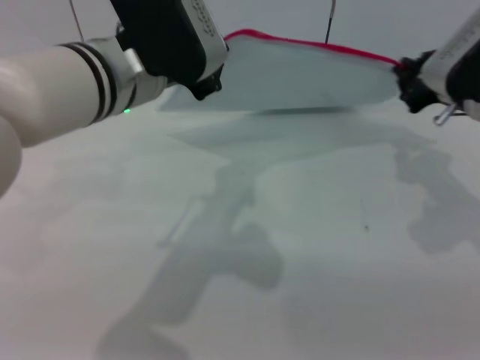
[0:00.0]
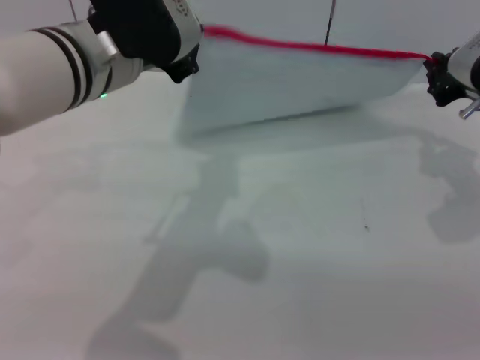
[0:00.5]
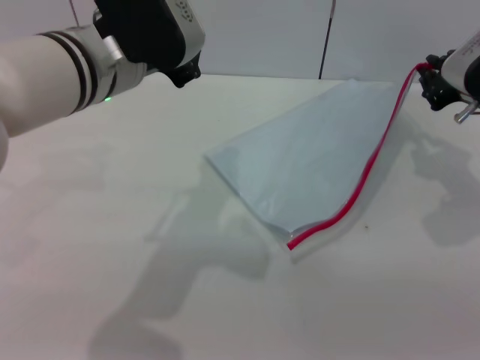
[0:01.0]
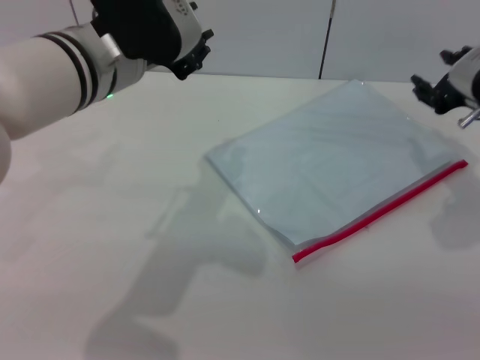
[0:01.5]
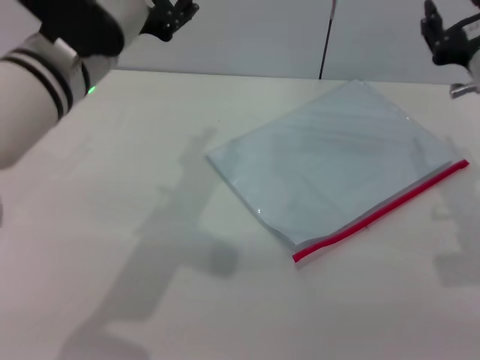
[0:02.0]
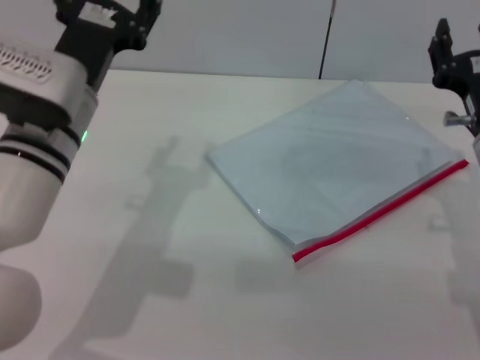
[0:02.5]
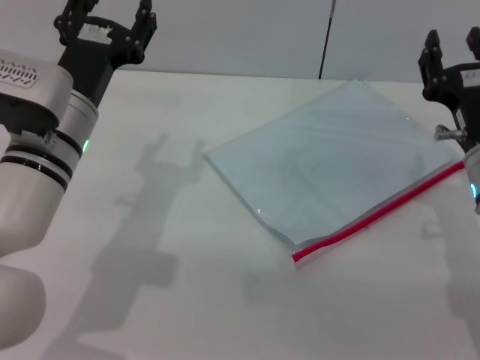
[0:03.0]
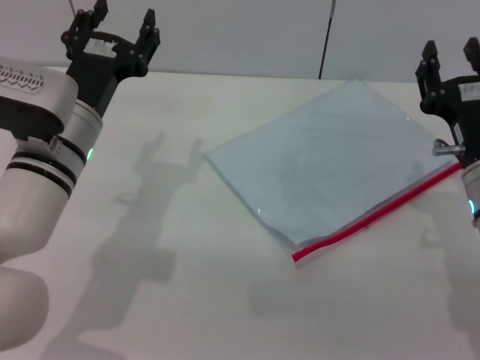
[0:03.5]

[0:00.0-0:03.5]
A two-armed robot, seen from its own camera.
Step, 0:01.0 to 0:01.5: Place the transparent plastic bag.
0:00.0 to 0:02.0: The right gripper opens up, while the left gripper opens its fingers.
0:02.0 to 0:03.5: The two grippers go roughly 10 cm downward.

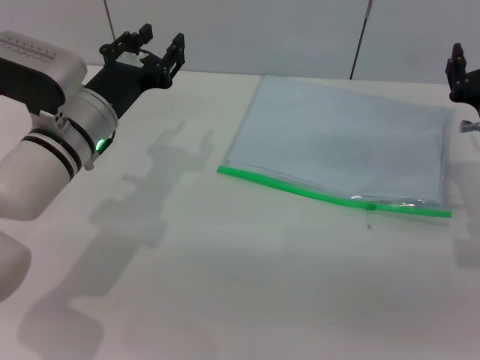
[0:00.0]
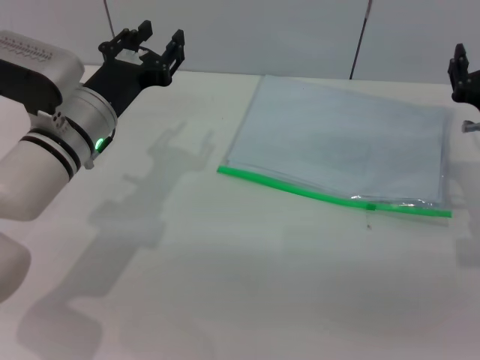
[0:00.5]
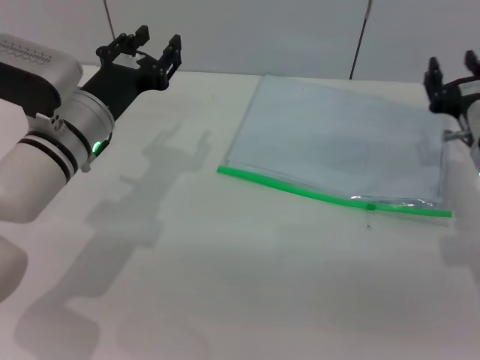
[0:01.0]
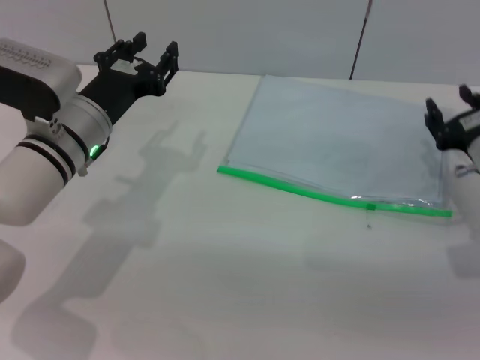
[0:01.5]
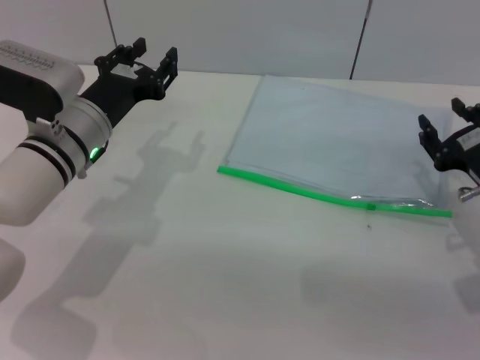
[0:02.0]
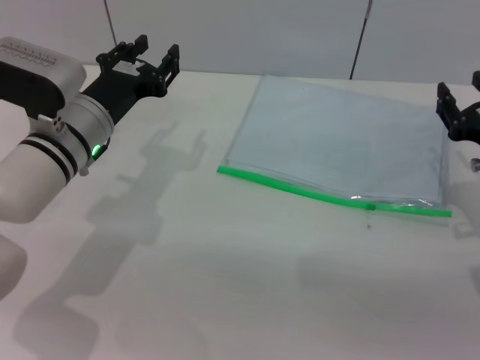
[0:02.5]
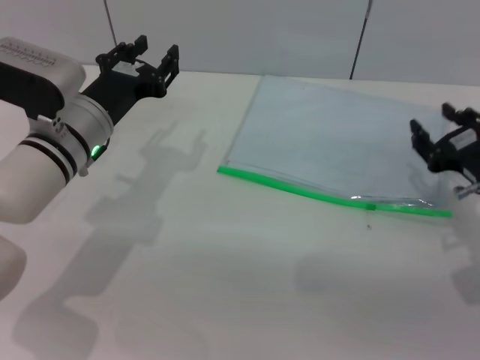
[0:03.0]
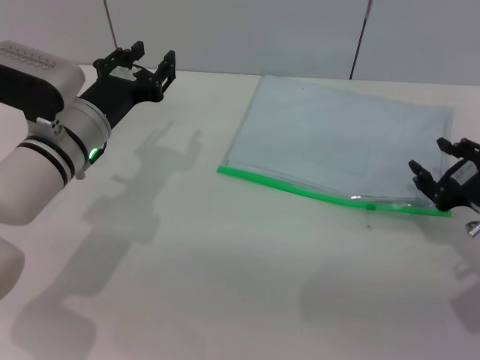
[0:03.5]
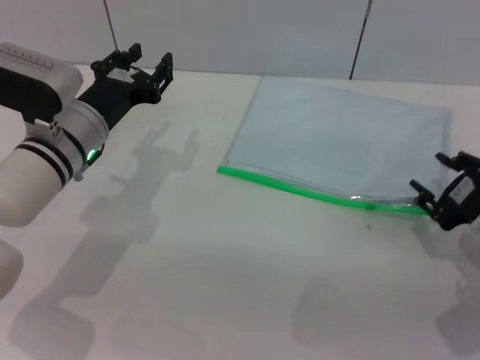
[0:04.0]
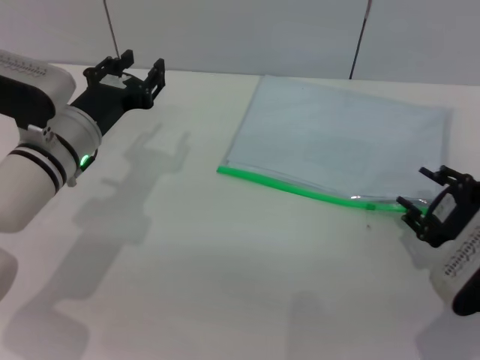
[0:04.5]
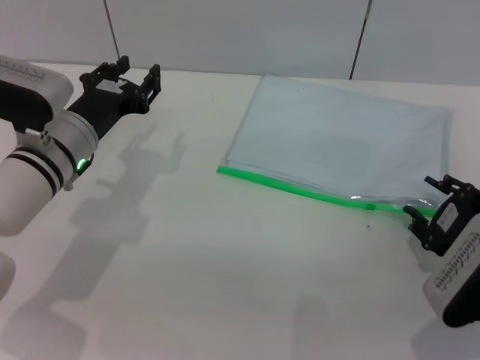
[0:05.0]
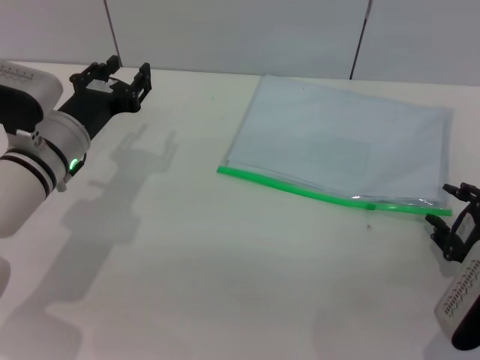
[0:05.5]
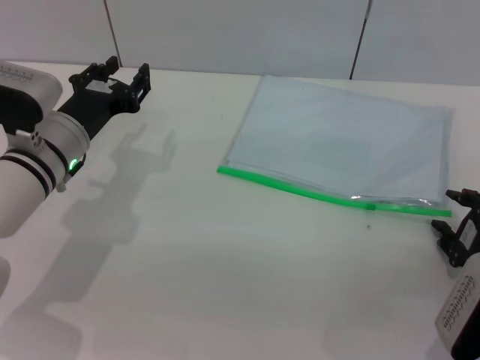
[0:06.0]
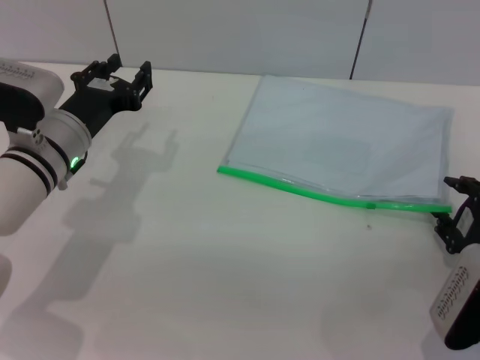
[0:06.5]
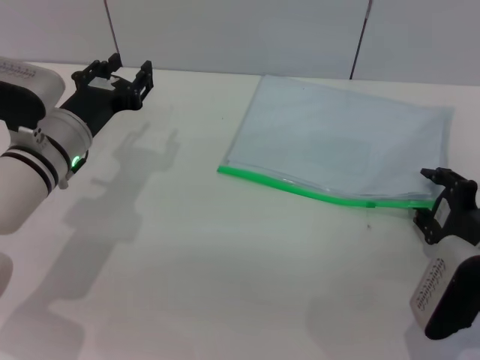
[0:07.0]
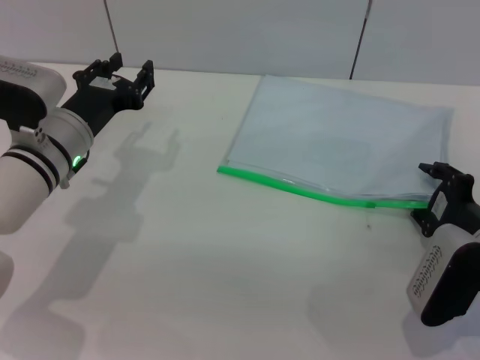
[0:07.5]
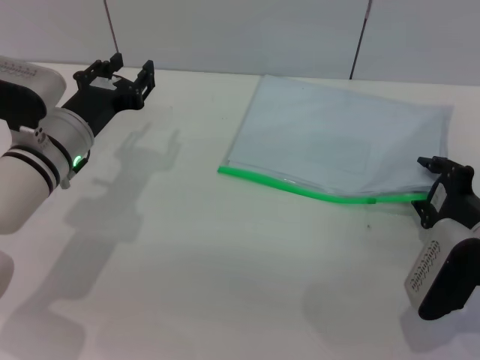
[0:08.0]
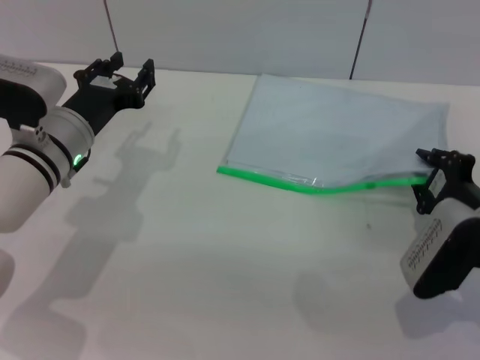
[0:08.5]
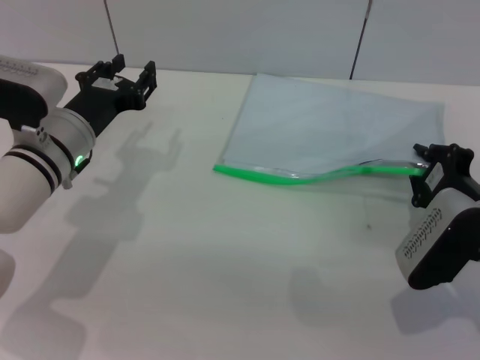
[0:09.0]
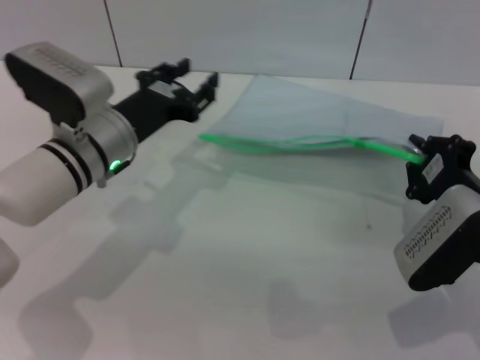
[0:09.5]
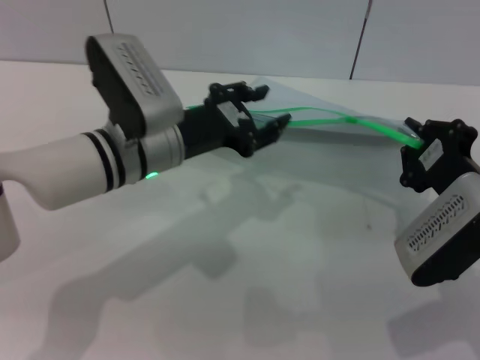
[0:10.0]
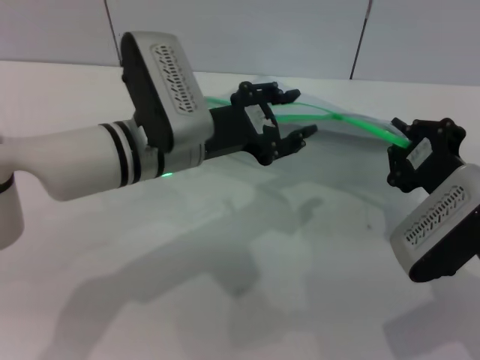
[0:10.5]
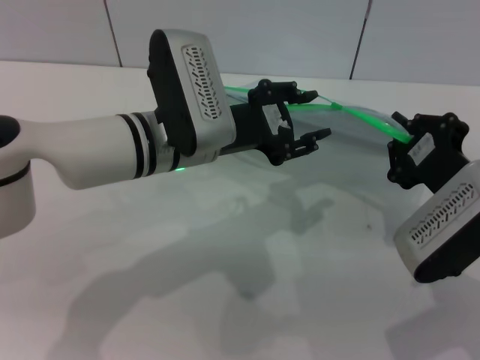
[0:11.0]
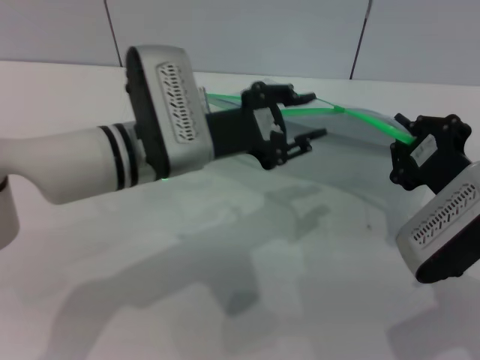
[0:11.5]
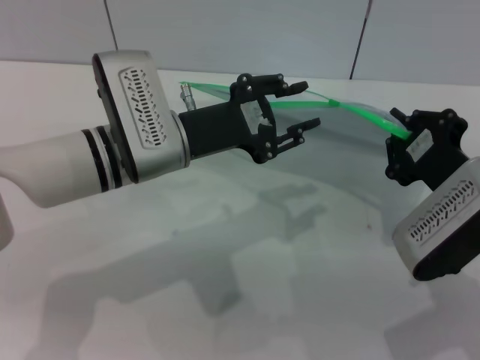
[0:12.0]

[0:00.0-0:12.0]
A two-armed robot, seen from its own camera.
Step, 0:00.0 to 0:09.5: Pick up the transparent plastic bag with the right gripper.
0:04.0 to 0:06.0: The right gripper changes place by some 5 cm.
0:06.0 to 0:08.0: The grippers make only small movements.
0:08.0 to 0:10.0: The right gripper goes some 5 cm upward, and closes. The left gripper travels to the right by approximately 10 cm.

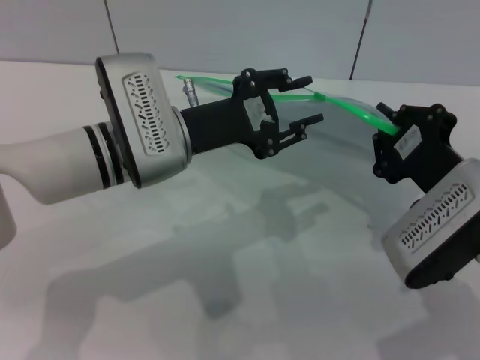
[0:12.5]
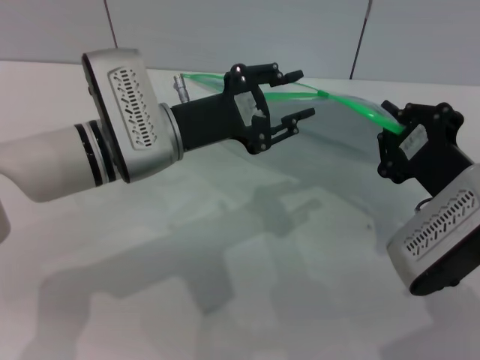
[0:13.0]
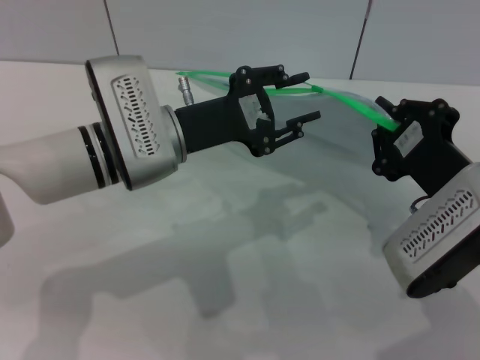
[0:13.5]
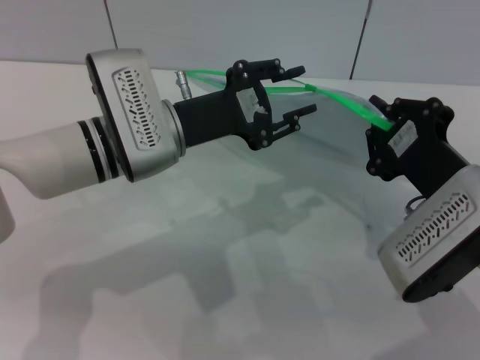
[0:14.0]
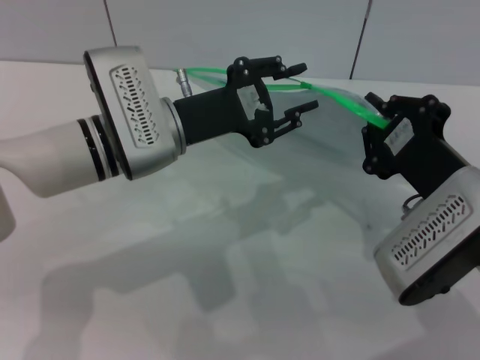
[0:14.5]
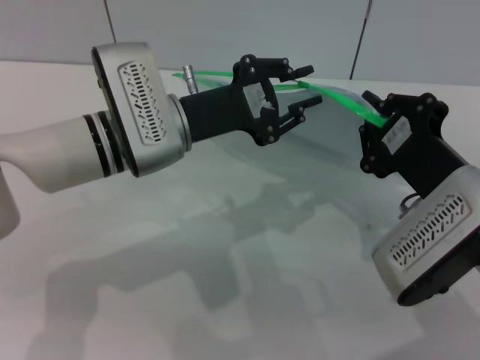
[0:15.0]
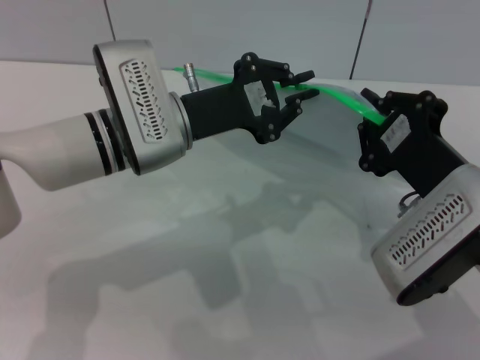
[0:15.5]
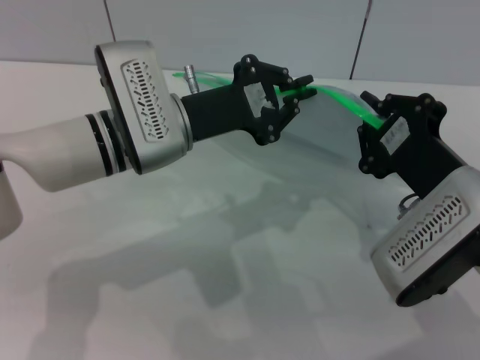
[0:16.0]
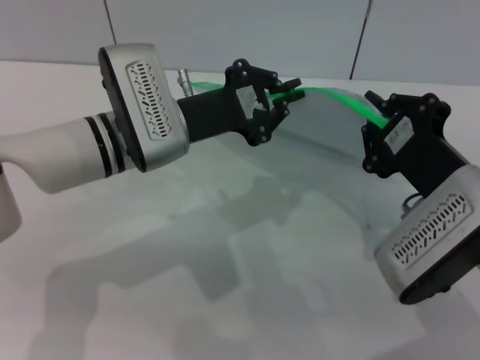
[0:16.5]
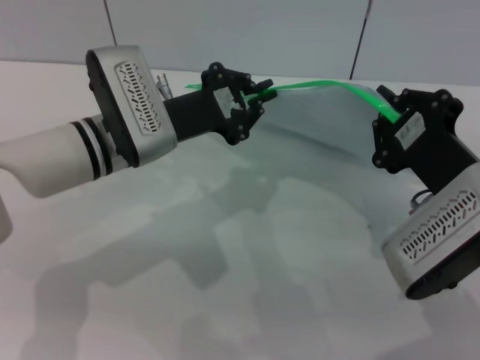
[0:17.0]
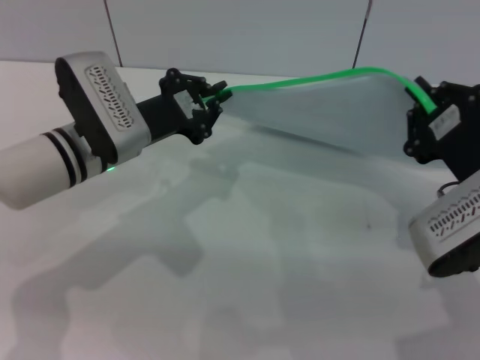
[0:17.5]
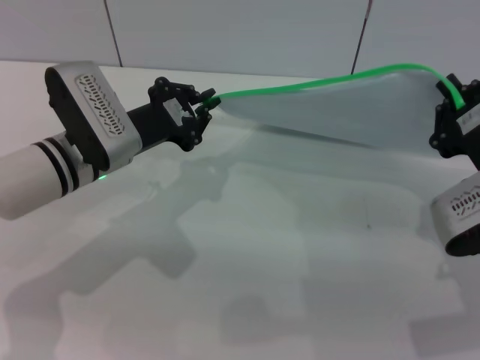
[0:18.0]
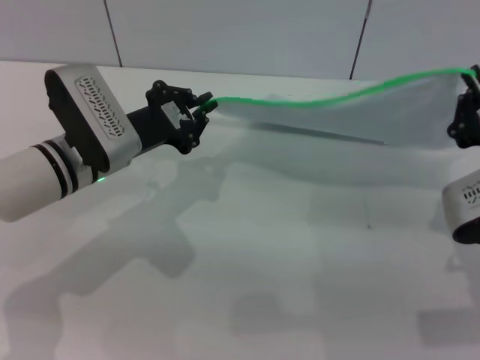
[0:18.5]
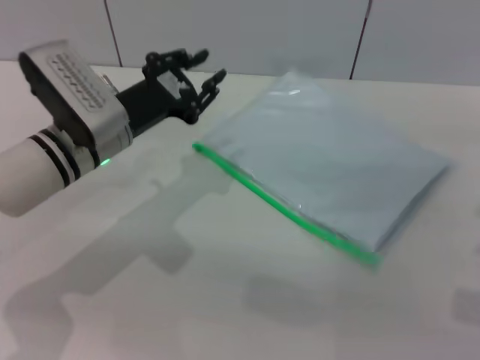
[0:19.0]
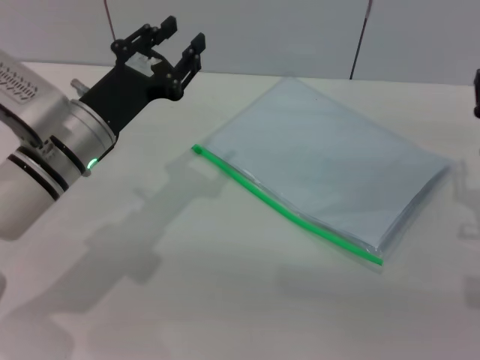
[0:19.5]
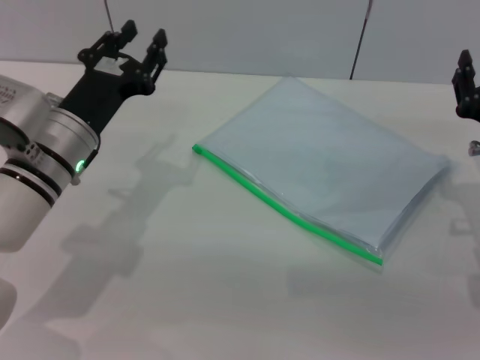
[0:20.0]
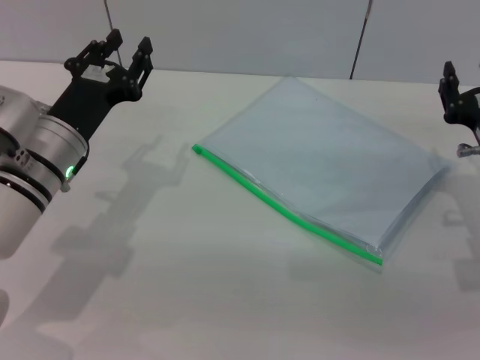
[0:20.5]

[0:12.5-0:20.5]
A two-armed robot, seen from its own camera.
Step, 0:12.5 to 0:18.5: Pulling up the zipper on the transparent plastic bag with the left gripper to close it.
0:12.5 to 0:14.5: The grippers stay close to where they were, moving slightly.
0:14.5 to 0:16.5: The left gripper closes its fingers.
0:16.5 to 0:18.5: The right gripper moves to the right, approximately 5 cm. The left gripper shifts roughly 5 cm to the left.
0:18.5 to 0:20.5: The right gripper heads forward and downward, covering about 10 cm, and opens its fingers. The left gripper opens up.
